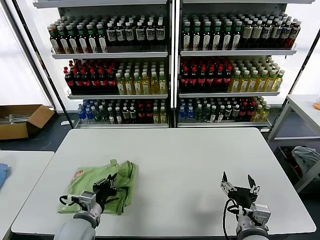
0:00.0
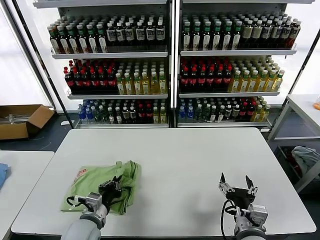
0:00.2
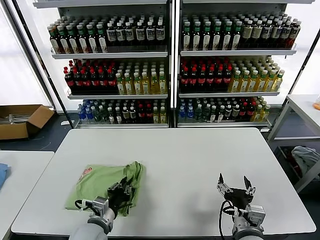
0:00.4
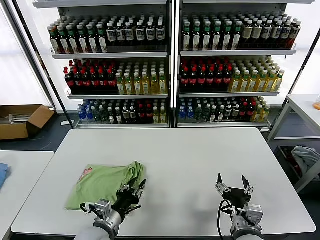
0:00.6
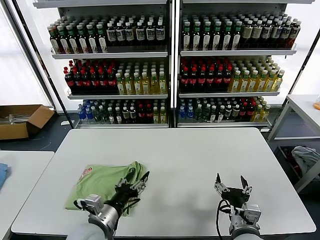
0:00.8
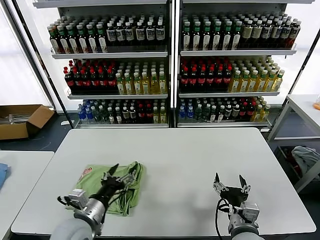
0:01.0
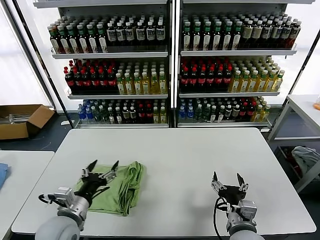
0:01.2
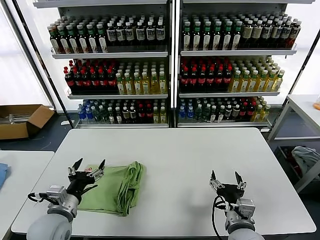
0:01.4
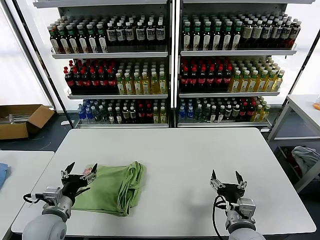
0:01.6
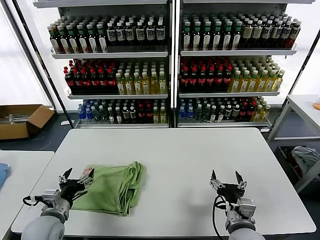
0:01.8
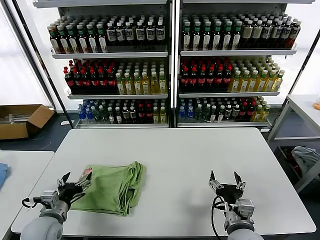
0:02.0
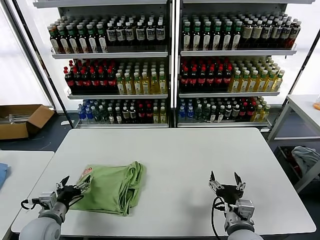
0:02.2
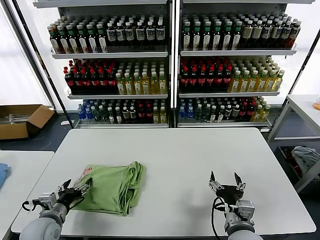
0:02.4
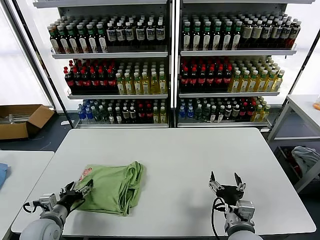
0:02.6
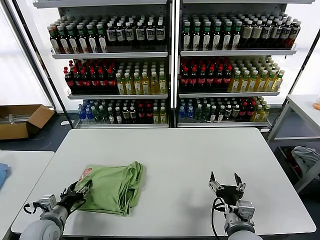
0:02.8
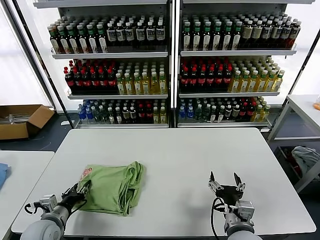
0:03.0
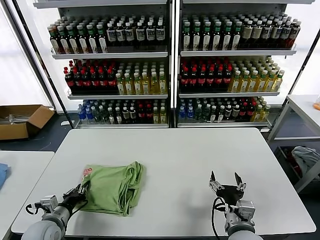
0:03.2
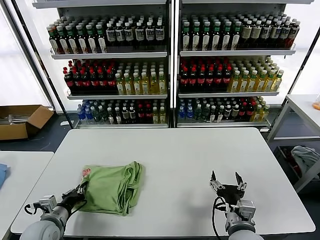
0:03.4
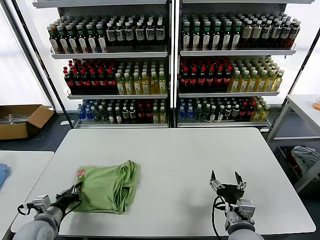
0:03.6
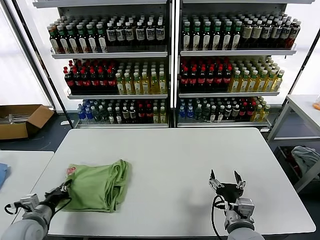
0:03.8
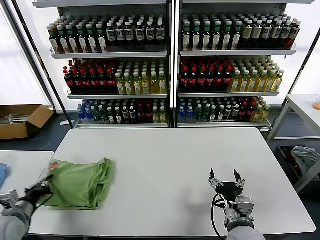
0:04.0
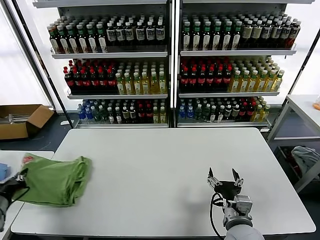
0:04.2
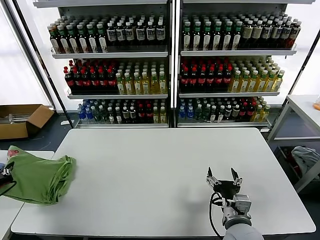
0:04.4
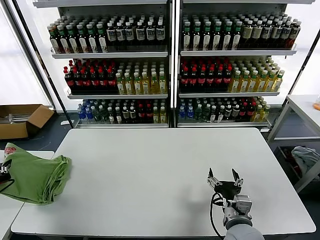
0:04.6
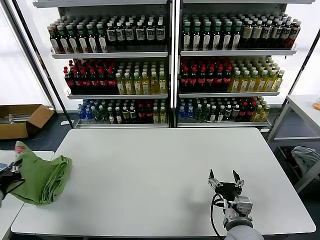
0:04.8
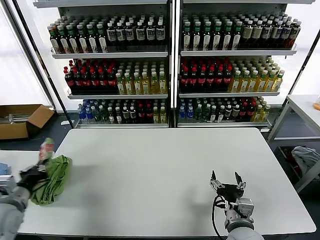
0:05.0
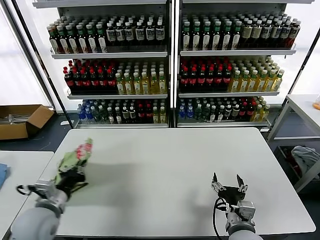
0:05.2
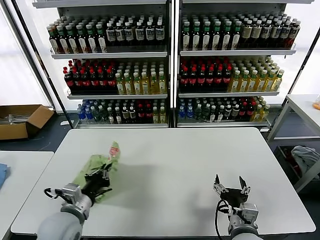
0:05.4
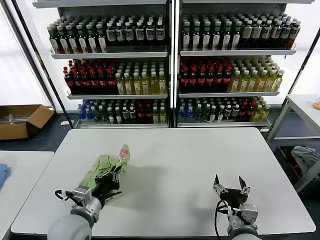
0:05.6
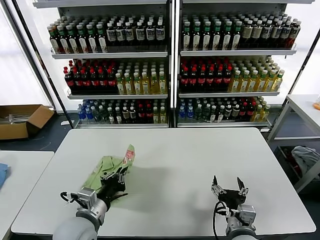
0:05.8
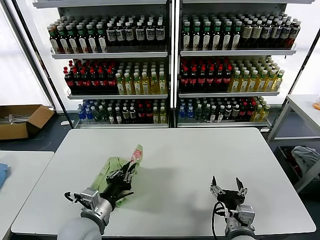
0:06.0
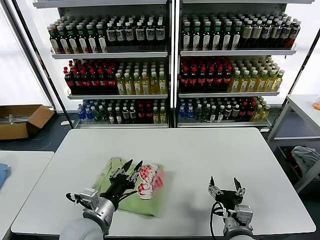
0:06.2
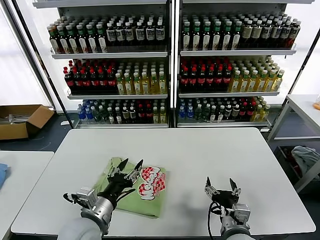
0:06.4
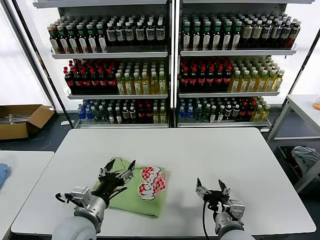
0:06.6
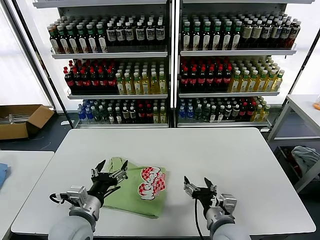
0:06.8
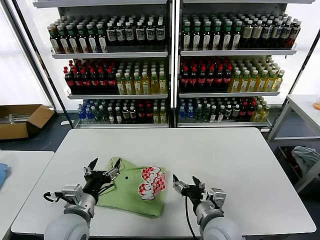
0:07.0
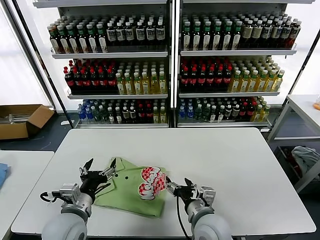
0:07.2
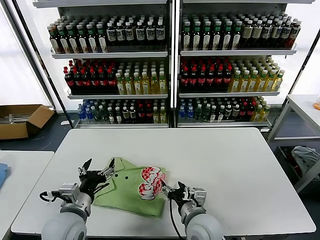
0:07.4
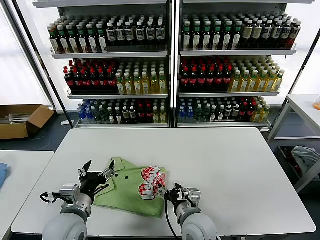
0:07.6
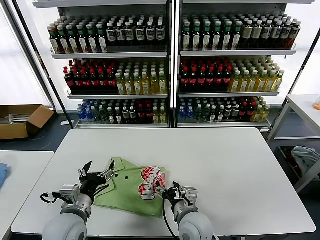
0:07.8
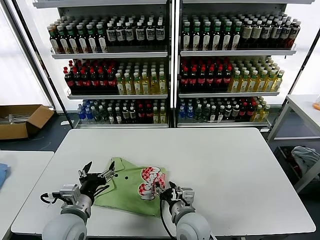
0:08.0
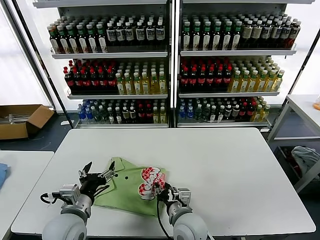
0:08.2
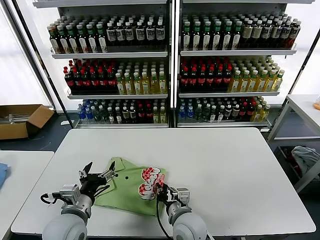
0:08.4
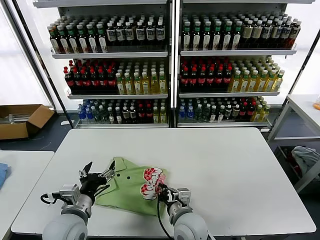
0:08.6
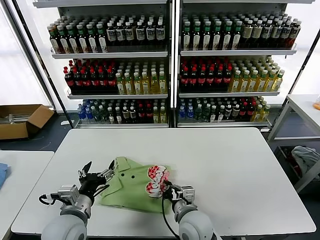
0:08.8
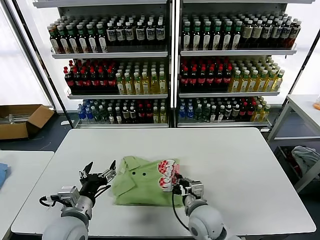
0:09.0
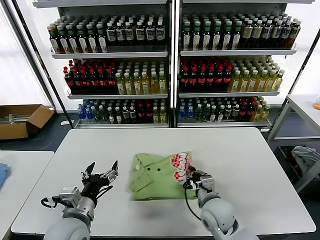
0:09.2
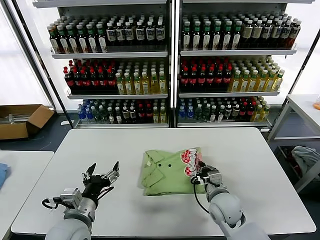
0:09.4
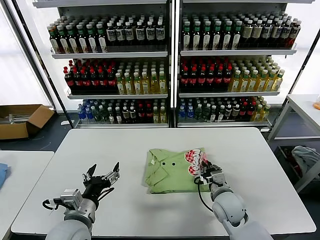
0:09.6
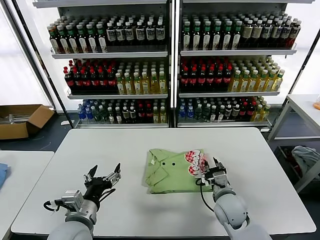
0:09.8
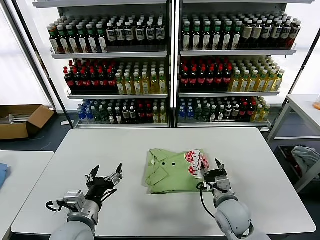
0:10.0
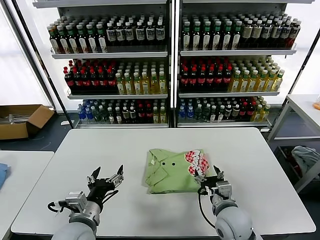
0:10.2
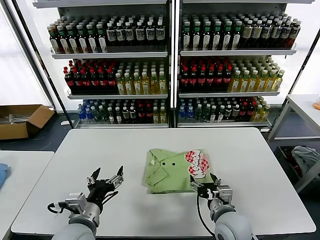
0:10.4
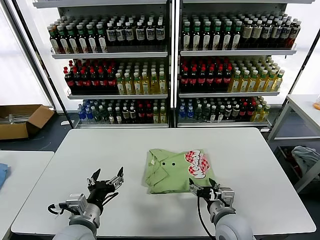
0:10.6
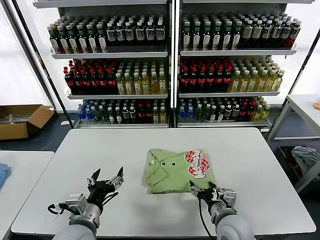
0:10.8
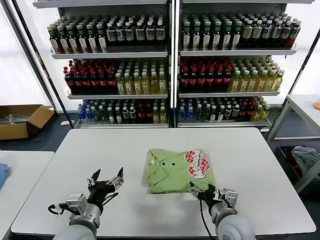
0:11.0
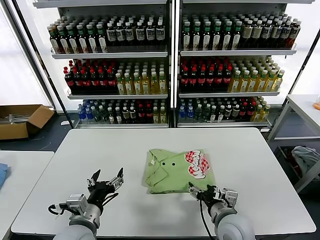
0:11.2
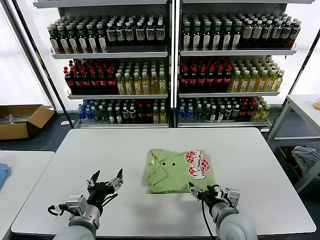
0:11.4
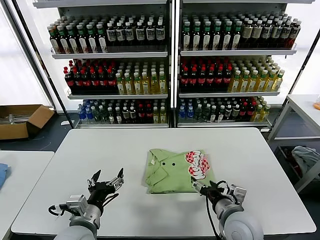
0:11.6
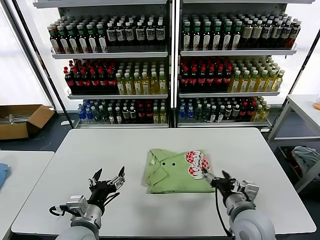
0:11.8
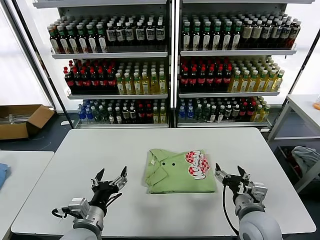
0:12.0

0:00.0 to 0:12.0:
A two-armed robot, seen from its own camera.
Task of the whole recording: fold and organize the clothes.
Step, 0:00.8 to 0:06.2: Flip the folded clothes over with left gripper.
0:00.0 to 0:01.6: The left gripper shifts about 5 cm to the left, and opens.
0:01.6 to 0:03.0: The left gripper heads downward and to the left, covering approximately 10 cm, and closes.
0:03.0 to 0:04.4: The left gripper goes roughly 20 cm to the left and upward, and closes its fingers.
0:04.4 to 0:06.0: The left gripper heads to the right, covering roughly 30 cm.
0:06.0 to 0:07.6: The right gripper is displaced to the left and forward by roughly 10 cm. Meanwhile the left gripper opens its fingers.
0:07.6 to 0:09.0: The right gripper closes.
0:09.0 to 0:10.4: The right gripper heads to the right, covering some 10 cm, and opens up.
0:10.4 to 0:12.0: The right gripper moves upward, approximately 5 cm.

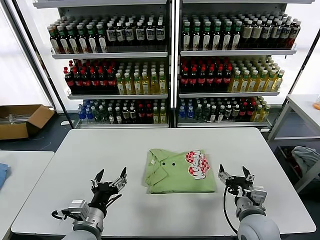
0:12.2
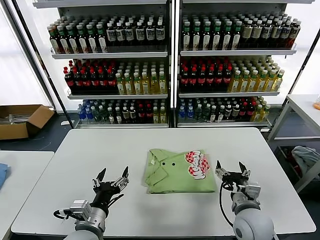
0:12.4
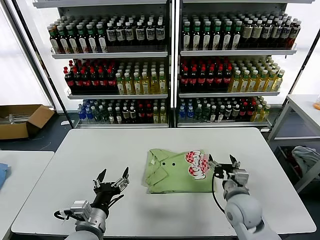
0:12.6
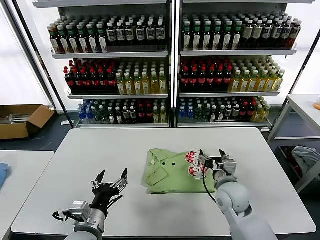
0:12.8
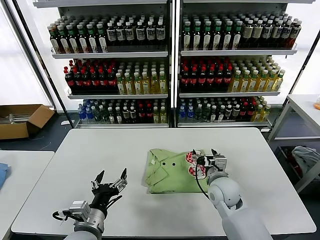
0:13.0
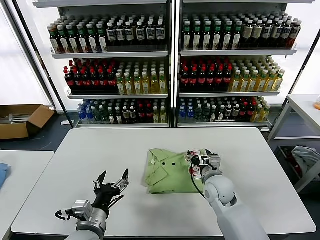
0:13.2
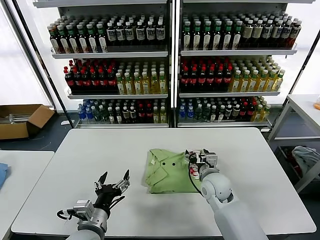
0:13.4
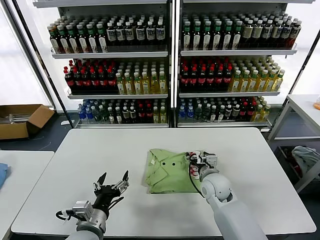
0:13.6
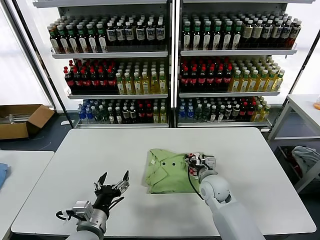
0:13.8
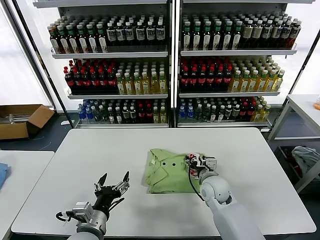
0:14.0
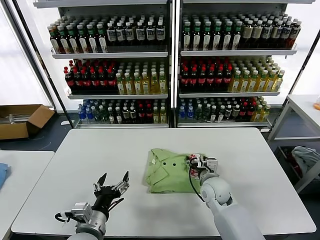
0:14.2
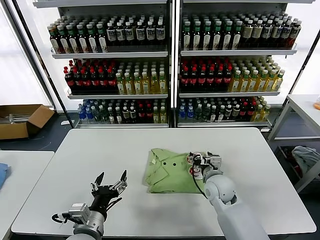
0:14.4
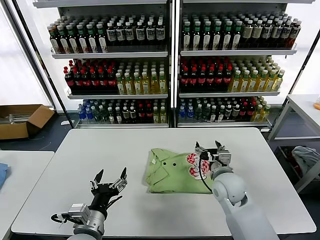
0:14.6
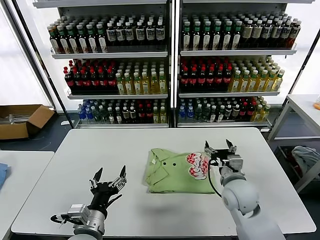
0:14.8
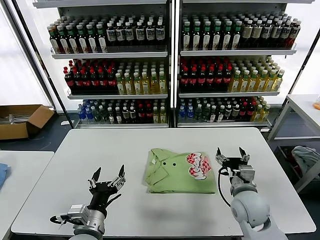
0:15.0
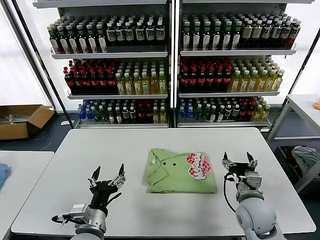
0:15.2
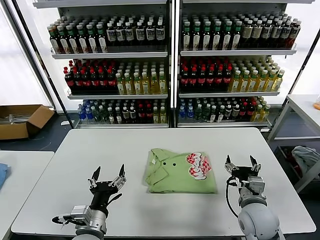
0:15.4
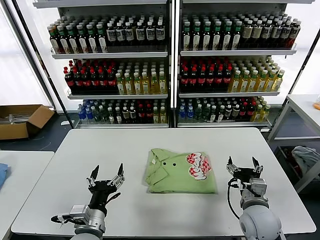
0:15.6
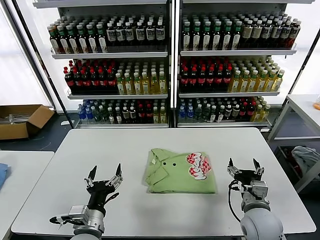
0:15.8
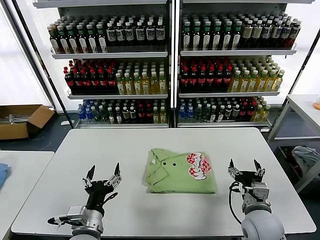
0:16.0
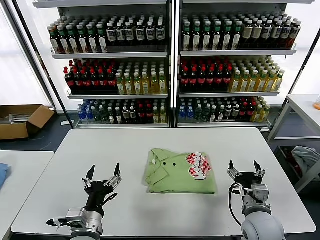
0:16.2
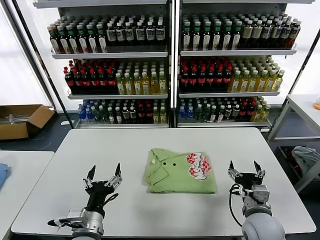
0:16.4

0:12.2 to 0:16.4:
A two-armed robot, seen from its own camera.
Task of the whole recording: fold and organize the clothes.
Step, 0:12.2 to 0:14.2: Drag the clothes to the center of the table.
0:12.2 to 0:13.6: The right gripper moves forward and to the left, some 15 cm.
0:13.6 to 0:15.0: The right gripper moves backward and to the right, approximately 10 cm.
0:15.0 to 0:16.4: The right gripper is displaced backward by some 5 cm.
